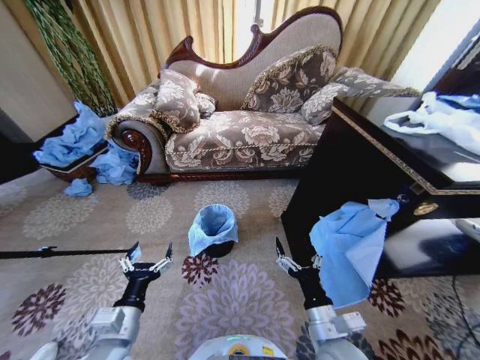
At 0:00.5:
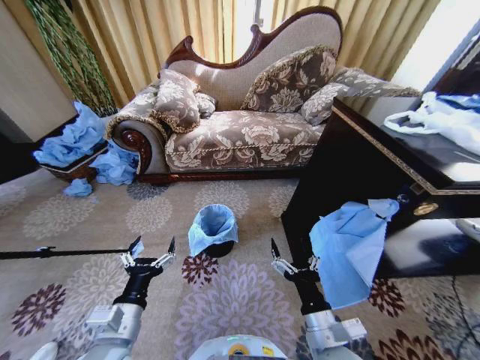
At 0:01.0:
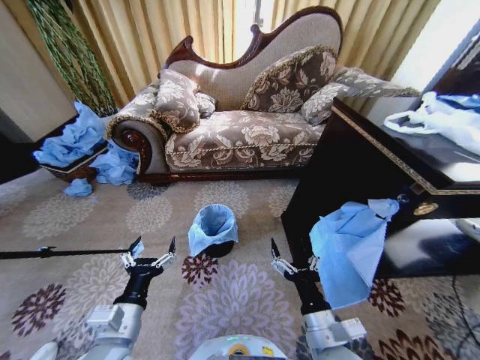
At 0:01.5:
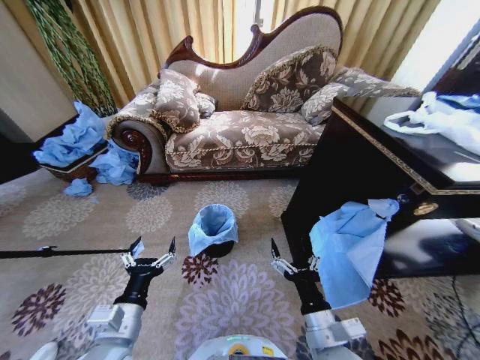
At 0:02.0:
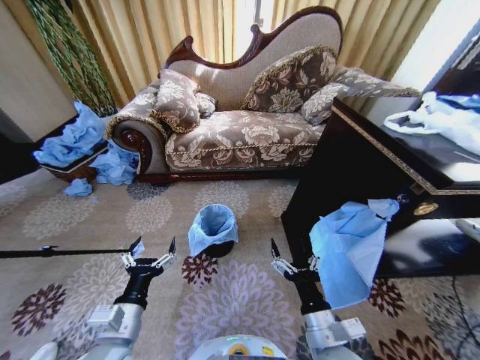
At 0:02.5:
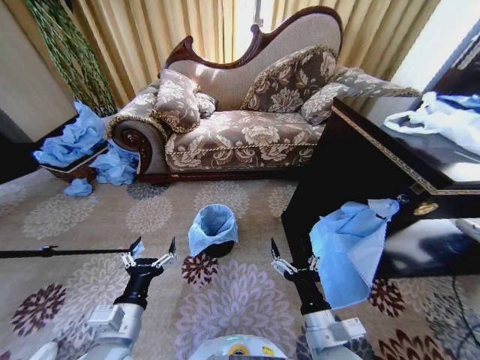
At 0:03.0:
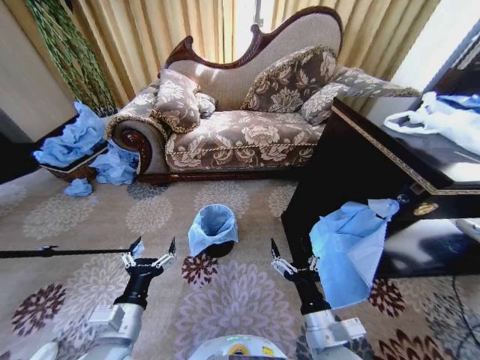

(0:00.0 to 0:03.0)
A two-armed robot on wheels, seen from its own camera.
Task of the whole recording: Place a garbage bag over the trash bin.
0:00.0 - 0:01.5: The grippers make only small movements.
0:01.5 - 0:03.0: Both grippers stay about where they are.
